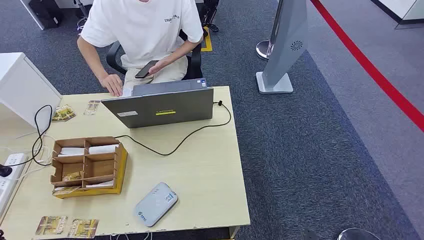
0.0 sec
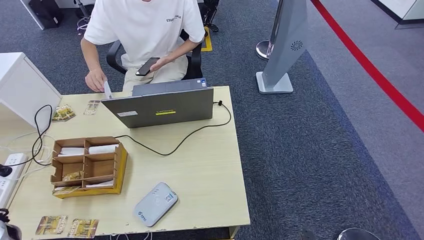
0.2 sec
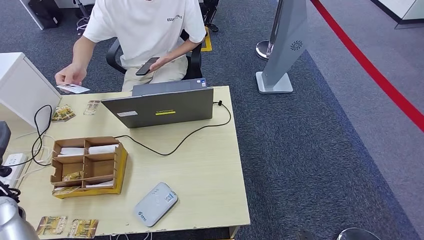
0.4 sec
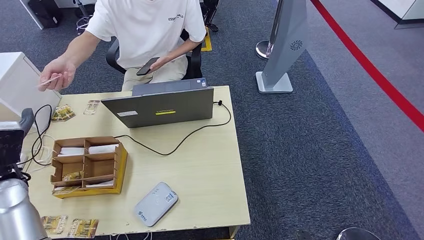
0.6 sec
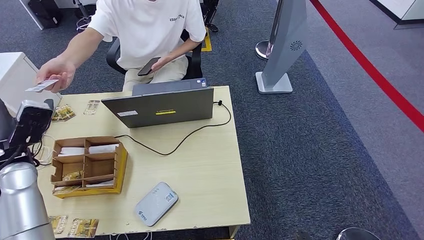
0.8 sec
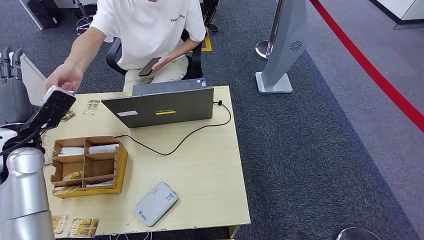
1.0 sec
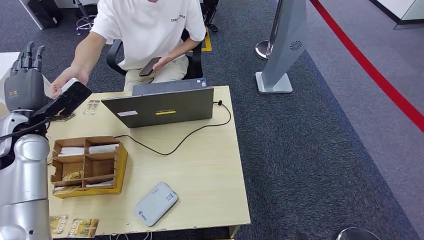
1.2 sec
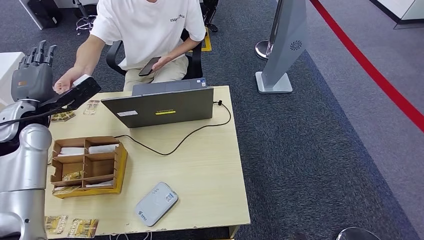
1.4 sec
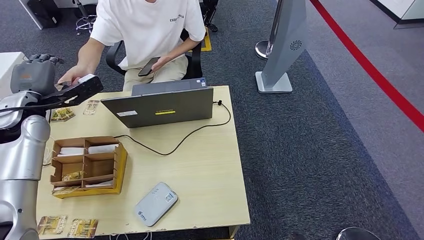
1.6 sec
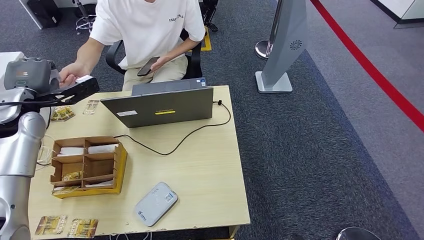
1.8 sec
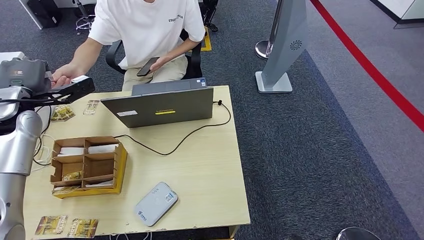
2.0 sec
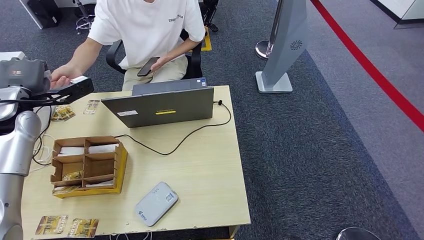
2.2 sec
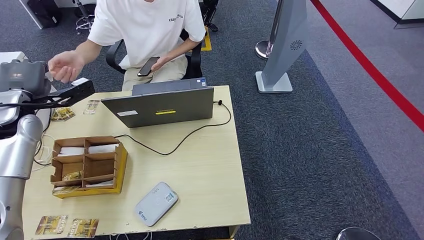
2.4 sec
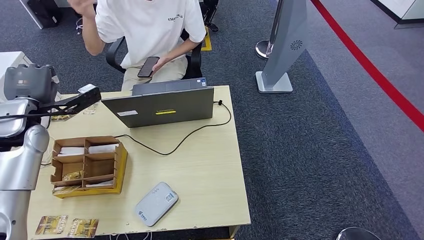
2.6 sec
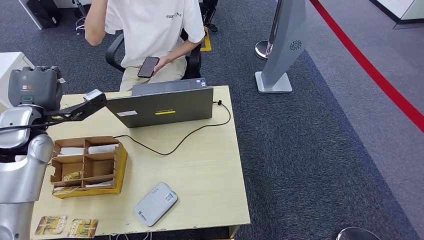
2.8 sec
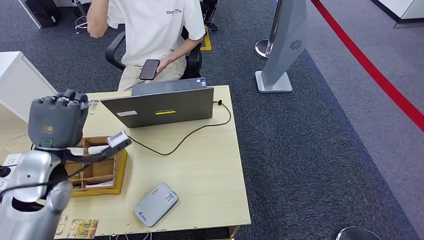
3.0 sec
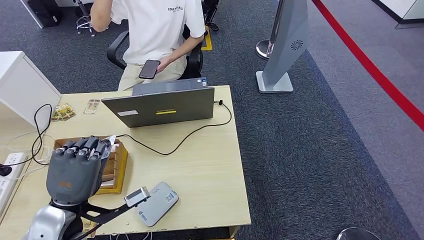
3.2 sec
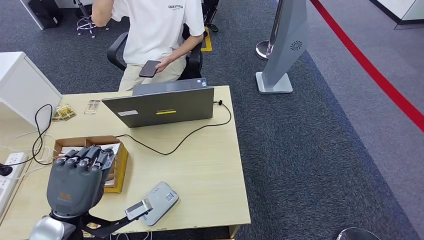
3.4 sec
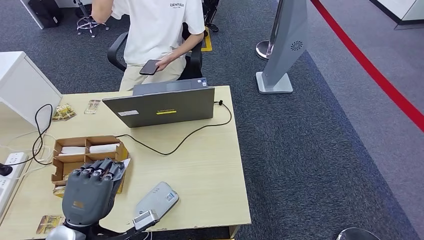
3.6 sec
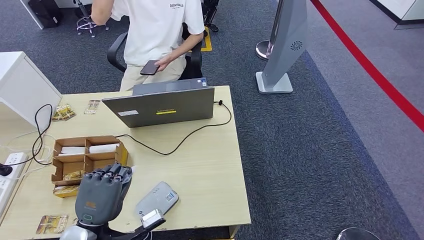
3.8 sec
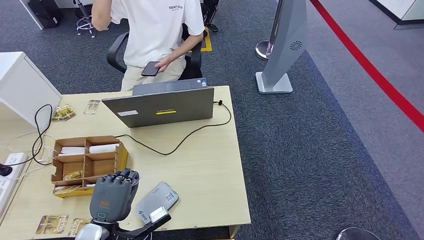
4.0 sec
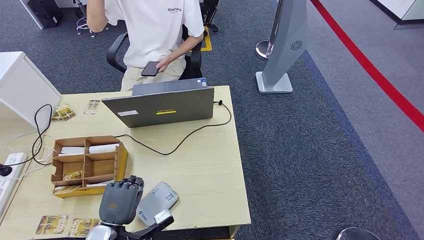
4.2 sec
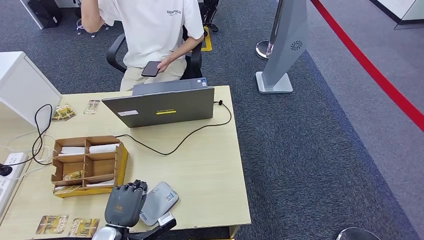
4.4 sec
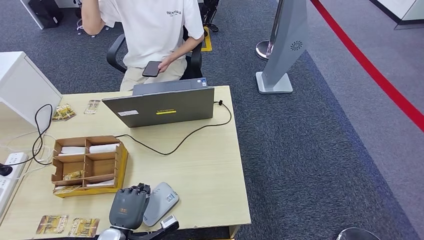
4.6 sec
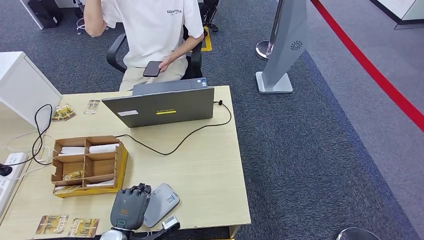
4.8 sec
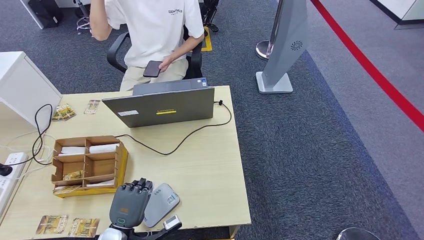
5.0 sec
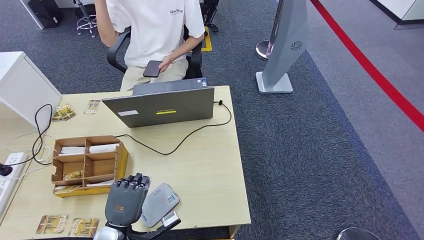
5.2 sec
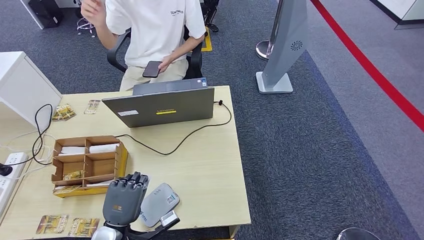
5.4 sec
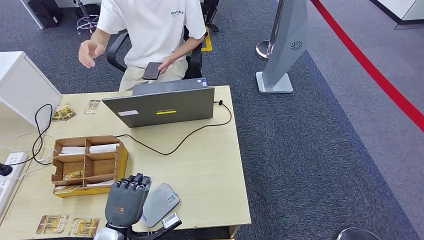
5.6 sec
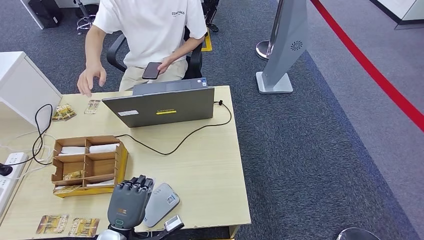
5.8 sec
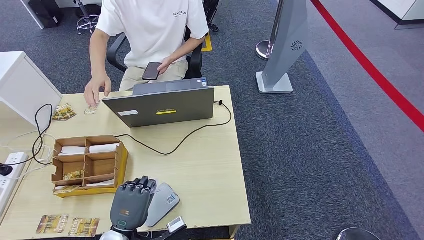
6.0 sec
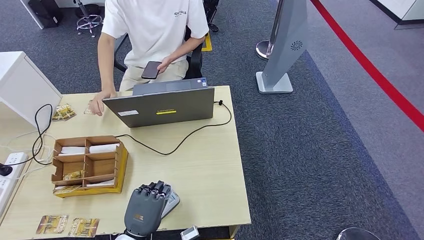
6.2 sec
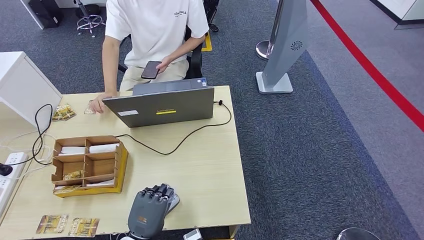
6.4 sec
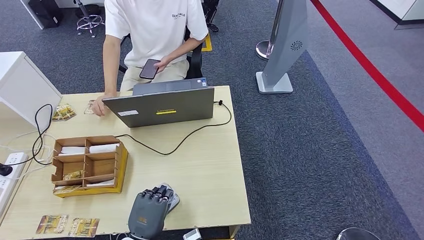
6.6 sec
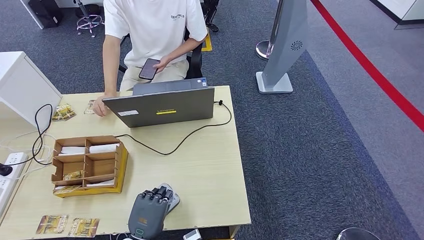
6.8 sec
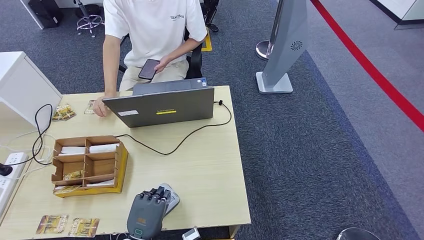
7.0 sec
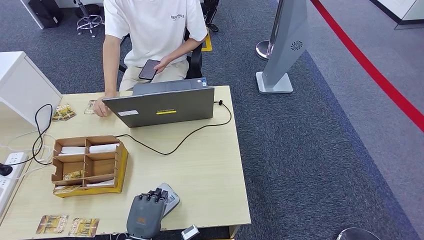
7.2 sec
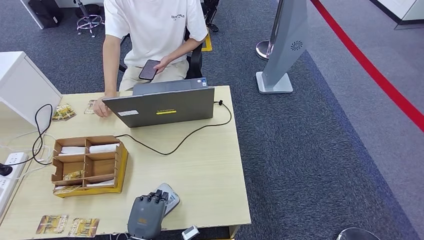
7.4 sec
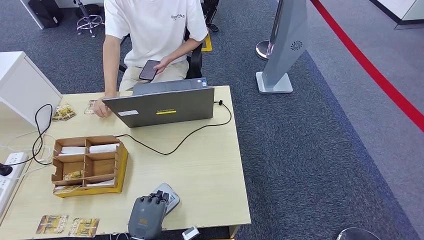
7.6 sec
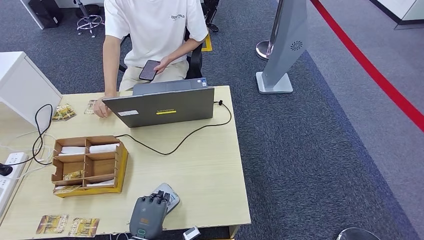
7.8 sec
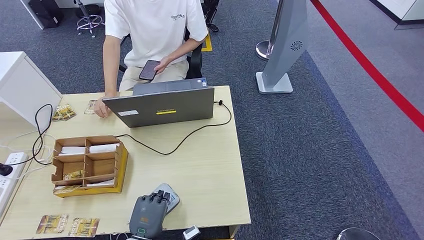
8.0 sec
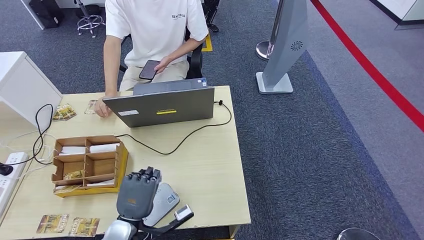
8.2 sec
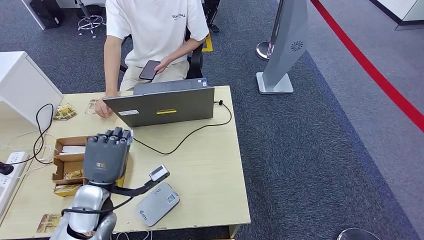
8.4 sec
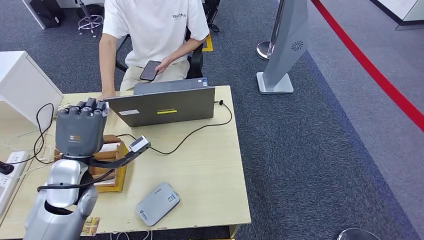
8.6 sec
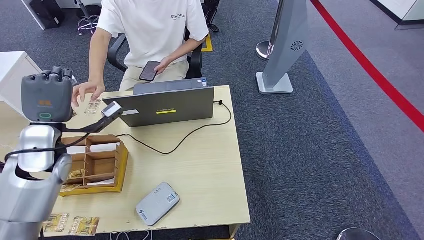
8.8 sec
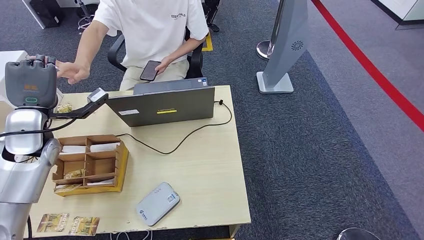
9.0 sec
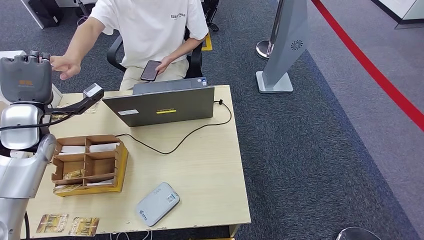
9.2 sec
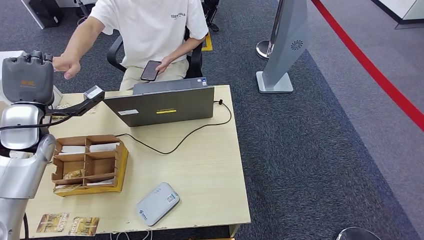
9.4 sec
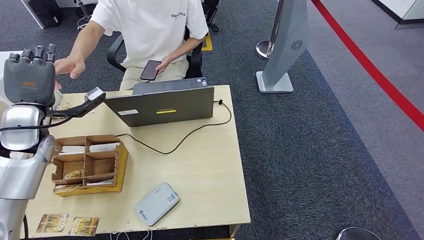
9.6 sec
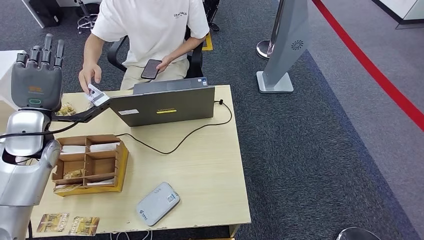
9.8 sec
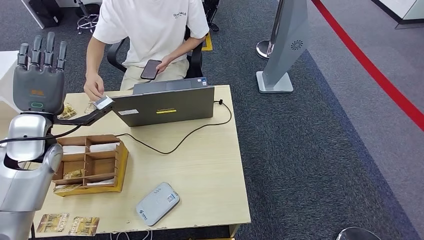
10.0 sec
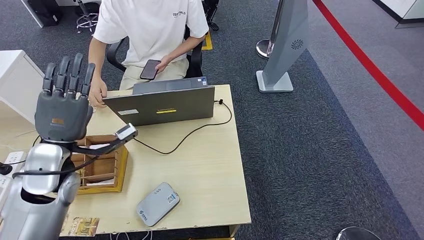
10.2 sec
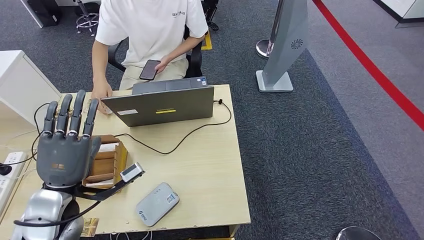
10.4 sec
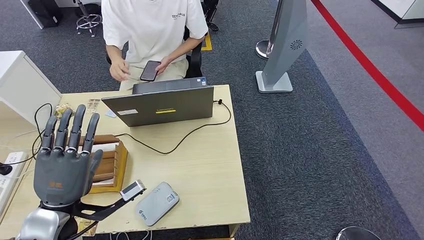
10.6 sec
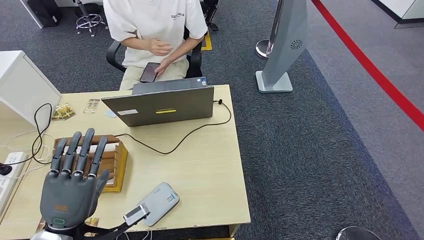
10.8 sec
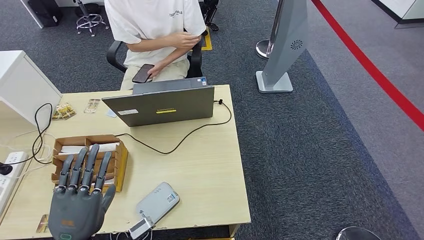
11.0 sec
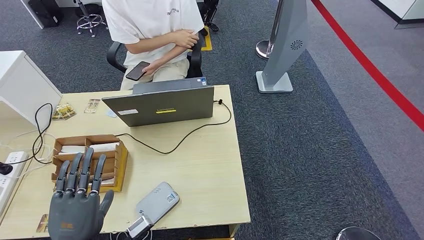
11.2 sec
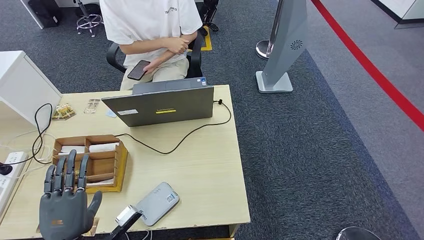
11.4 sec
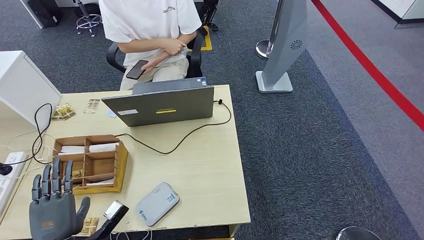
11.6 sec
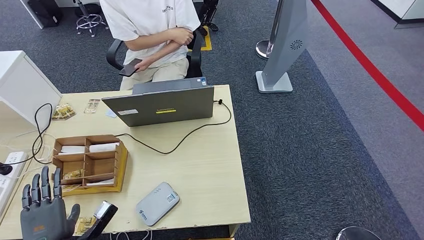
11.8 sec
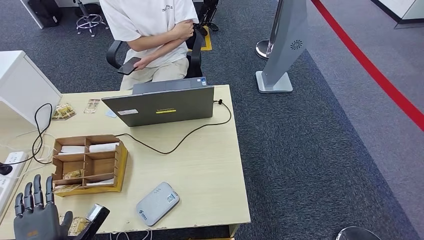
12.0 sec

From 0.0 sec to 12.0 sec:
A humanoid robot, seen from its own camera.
Step, from 0.0 sec to 3.2 sec: Take the ID card from the person's hand.
Step, from 3.4 sec to 6.0 sec: Place the ID card on the card reader.
Step, from 6.2 sec to 10.2 sec: Hand the ID card to the person.
From 1.6 sec to 3.0 sec: The left hand moves backward, to the right and downward, roughly 15 cm.
From 3.0 sec to 4.4 sec: The left hand travels downward and backward by some 25 cm.
From 4.4 sec to 6.0 sec: The hands move only a little.
From 6.0 sec to 7.6 sec: The left hand ends up about 5 cm from where it was.
From 7.6 sec to 9.0 sec: The left hand goes some 40 cm upward, forward and to the left.
From 9.0 sec to 10.4 sec: The left hand is displaced backward and to the right by about 15 cm.
From 10.4 sec to 12.0 sec: The left hand moves downward, backward and to the left, approximately 20 cm.

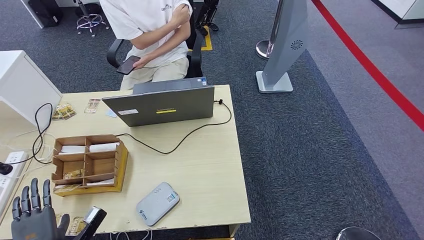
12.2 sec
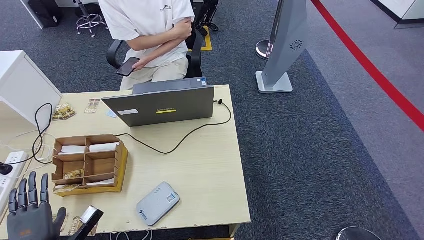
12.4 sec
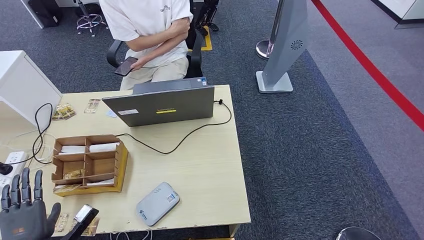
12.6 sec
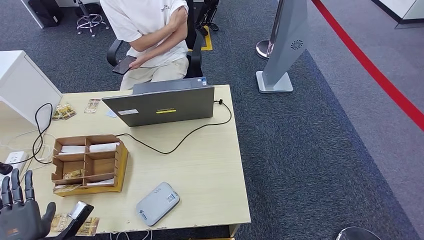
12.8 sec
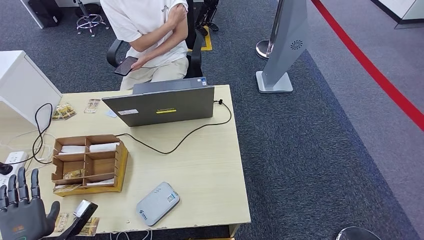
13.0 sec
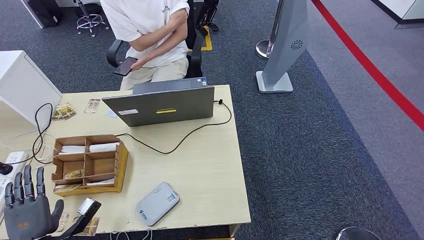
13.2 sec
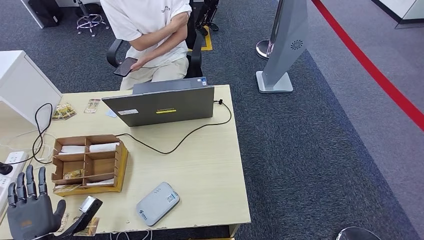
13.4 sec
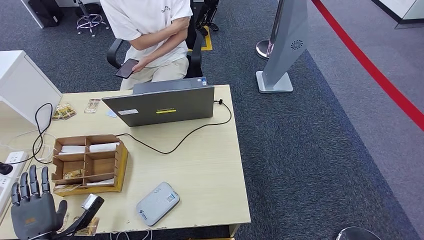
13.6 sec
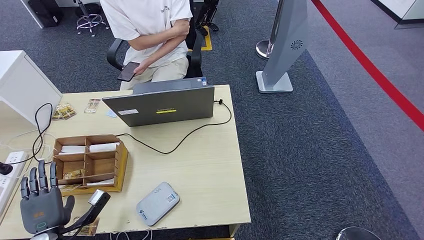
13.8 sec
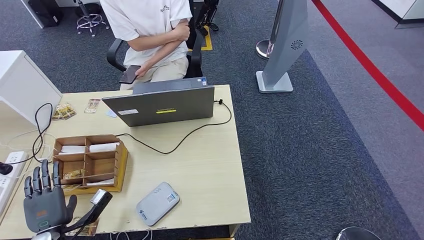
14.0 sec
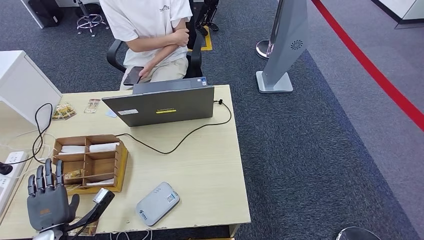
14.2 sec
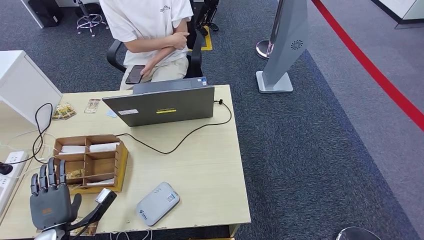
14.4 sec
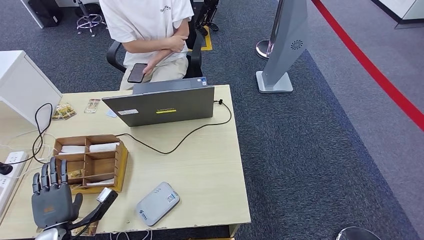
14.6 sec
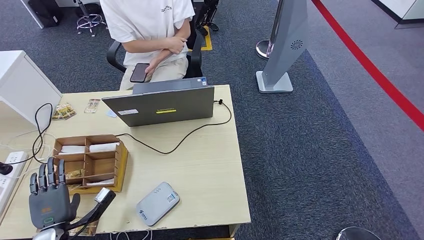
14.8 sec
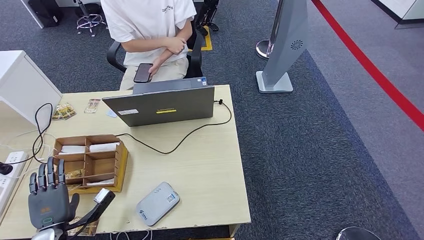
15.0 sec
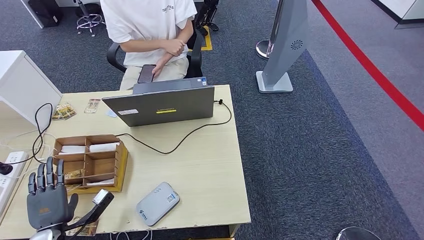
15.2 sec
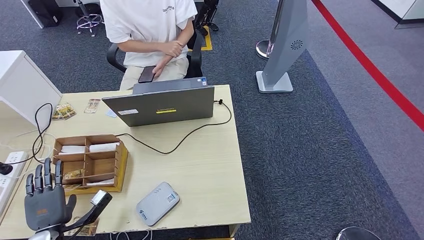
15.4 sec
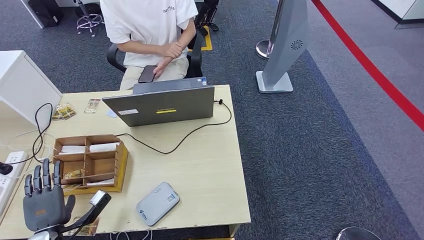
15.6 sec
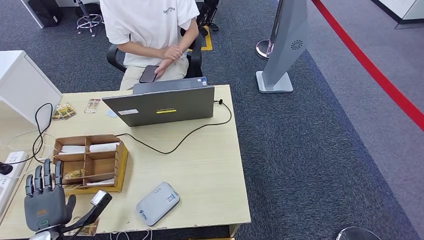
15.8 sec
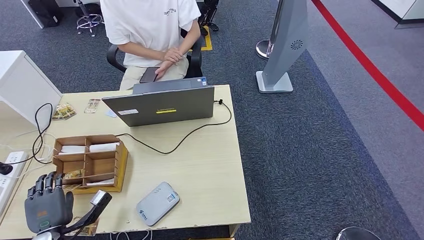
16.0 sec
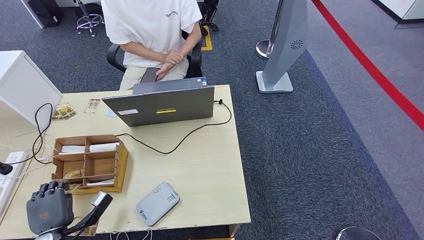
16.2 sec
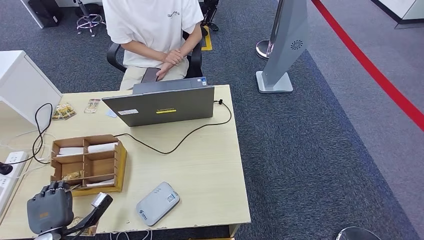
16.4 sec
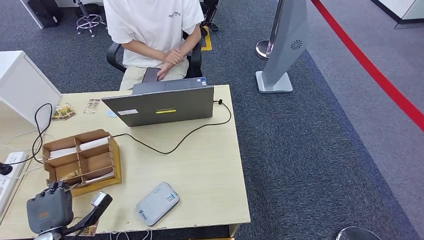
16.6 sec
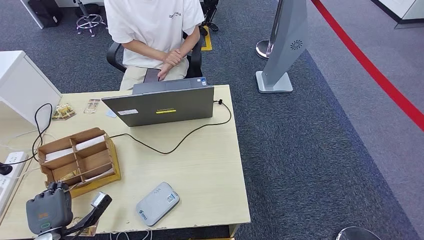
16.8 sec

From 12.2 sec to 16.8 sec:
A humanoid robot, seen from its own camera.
Step, from 12.2 sec to 16.4 sec: Pick up the room key from the key card box.
From 12.2 sec to 16.8 sec: The hands make only small movements.
